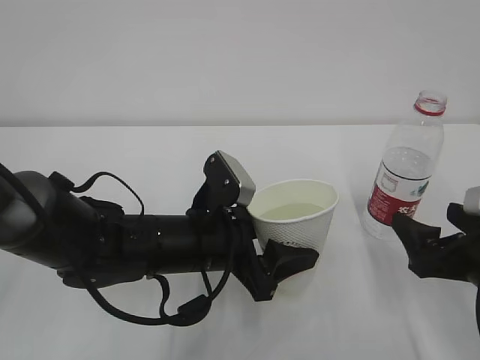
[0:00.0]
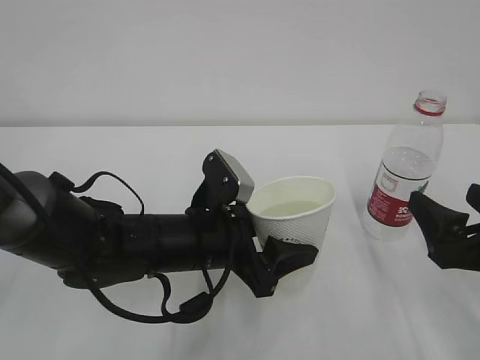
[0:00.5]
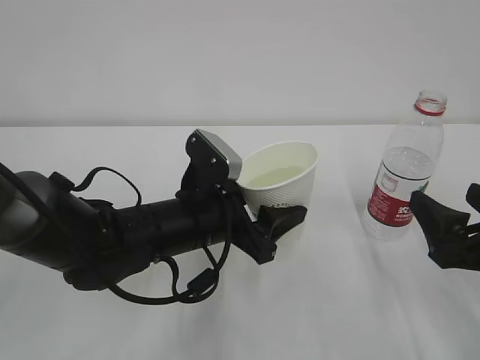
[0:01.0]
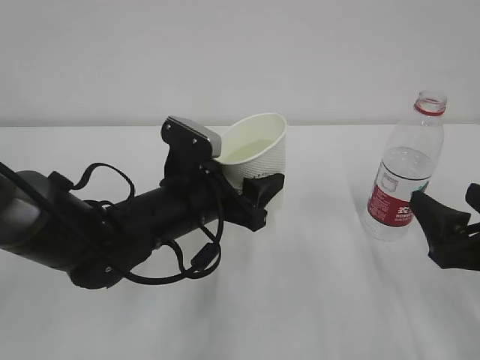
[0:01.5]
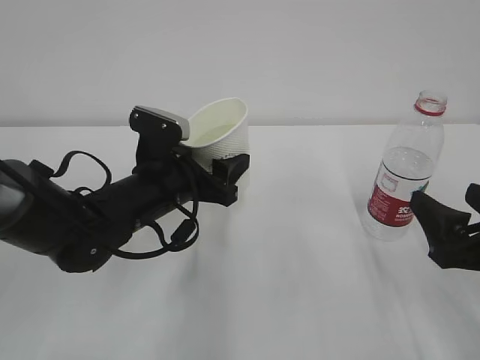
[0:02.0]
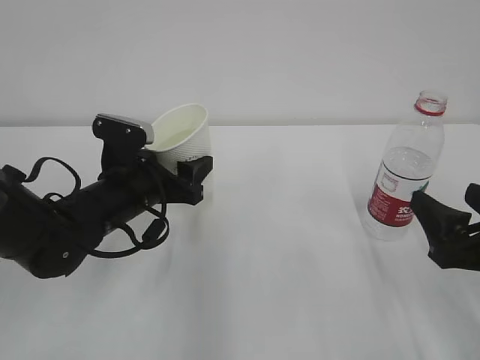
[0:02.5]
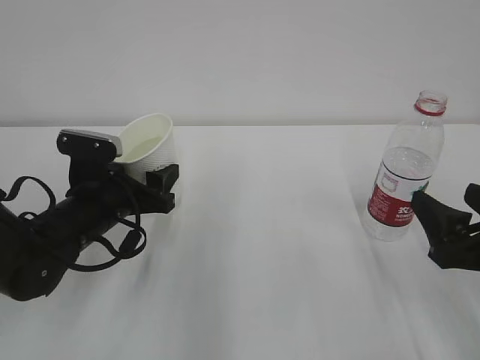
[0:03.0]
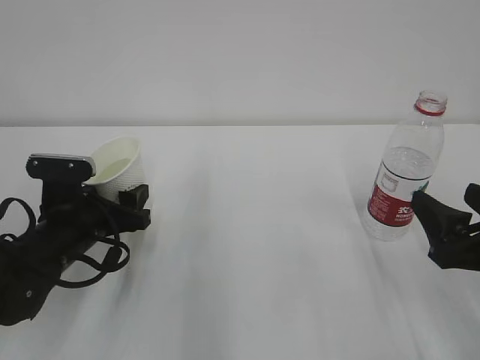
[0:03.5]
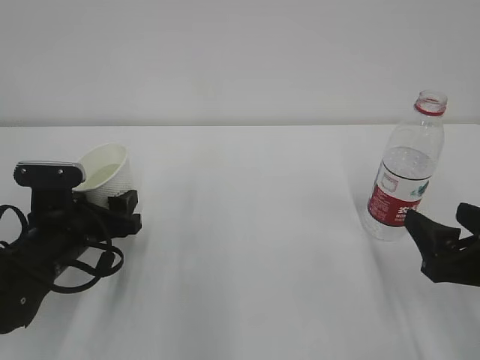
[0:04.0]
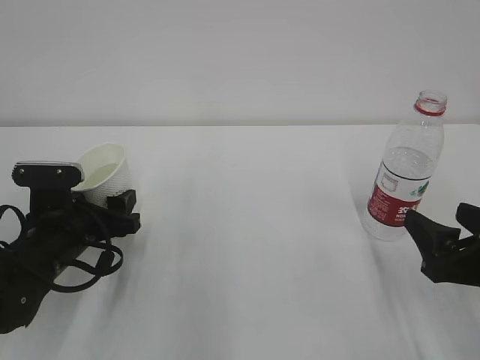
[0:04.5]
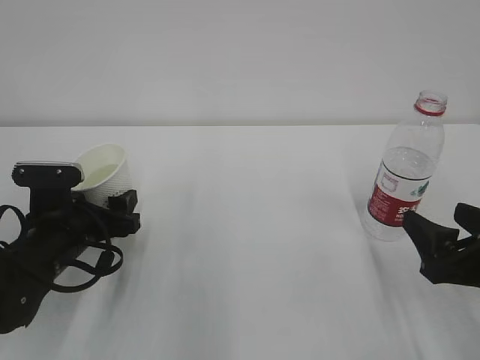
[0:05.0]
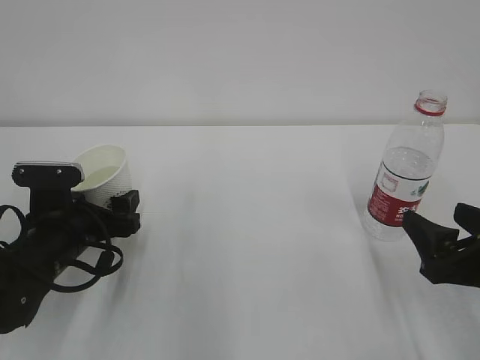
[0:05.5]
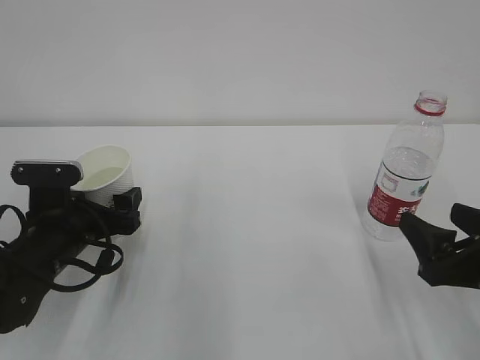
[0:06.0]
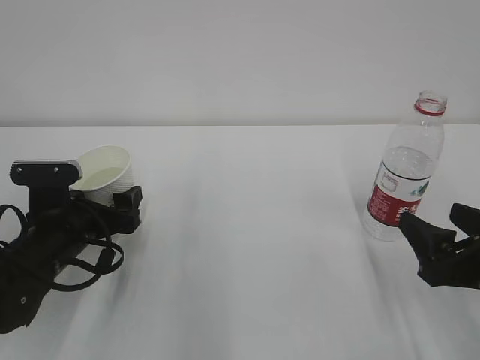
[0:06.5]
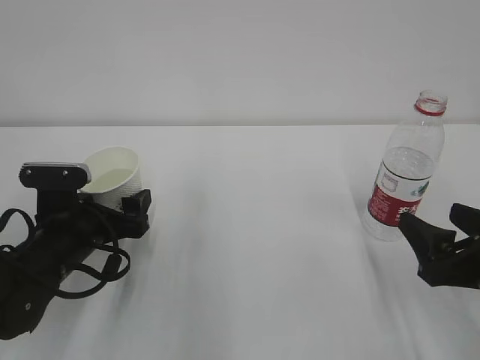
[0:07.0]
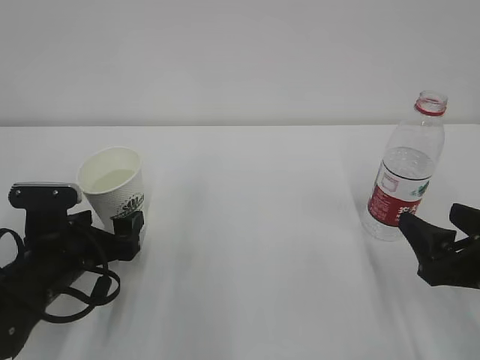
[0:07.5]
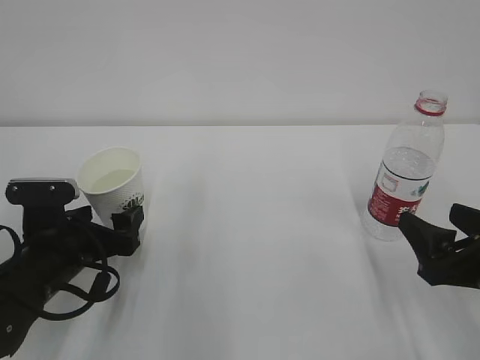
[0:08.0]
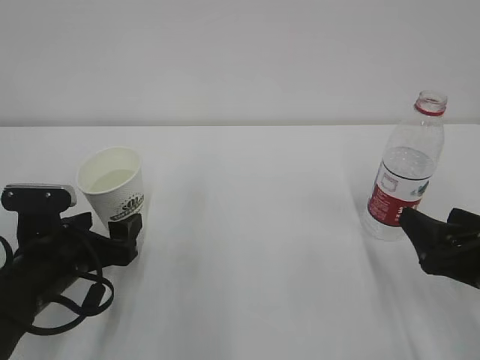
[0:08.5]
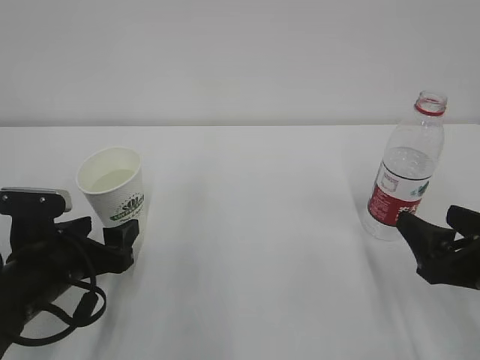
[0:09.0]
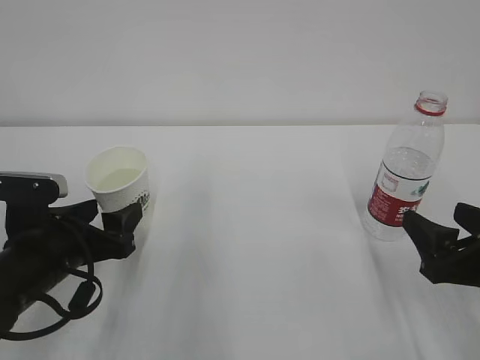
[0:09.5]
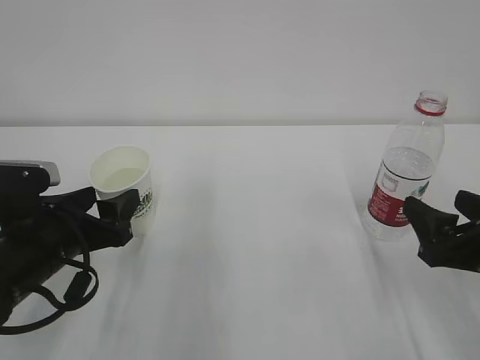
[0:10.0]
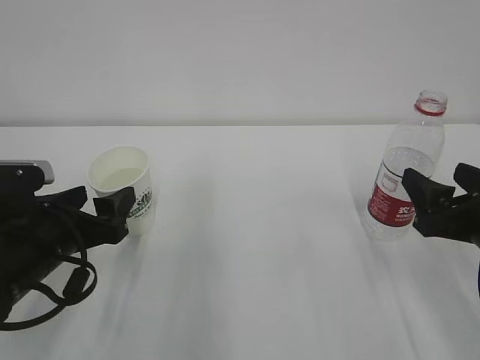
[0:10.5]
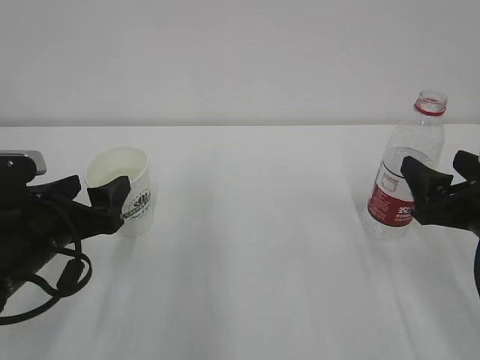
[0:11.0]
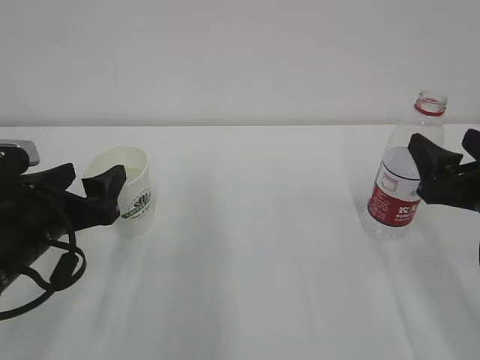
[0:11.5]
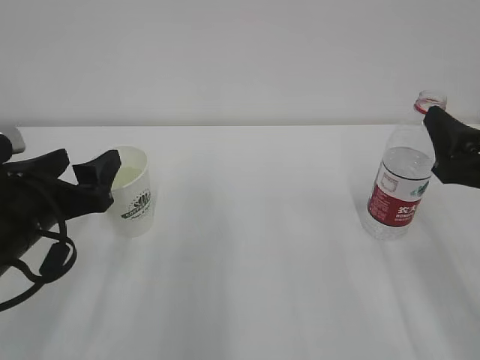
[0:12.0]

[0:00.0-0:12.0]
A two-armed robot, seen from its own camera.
Step, 0:00.0 to 0:06.0: Put the cup down with left gripper.
0:00.0 to 0:02.0: The left gripper goes about 5 cm forward.
0:02.0 to 0:04.0: The left gripper travels to the left by about 10 cm.
0:04.0 to 0:06.0: The left gripper opens its fingers.
0:06.0 to 0:08.0: The grippers stay close to where they were, moving slightly.
0:08.0 to 0:10.0: The left gripper closes up.
0:10.0 to 0:12.0: The right gripper moves upward, some 5 cm.

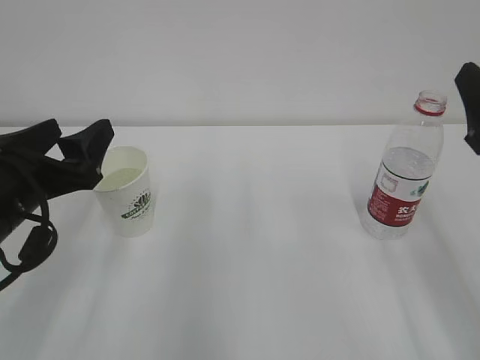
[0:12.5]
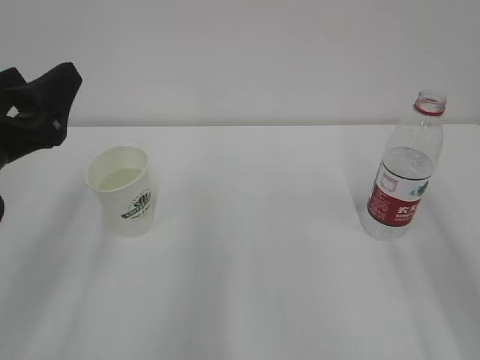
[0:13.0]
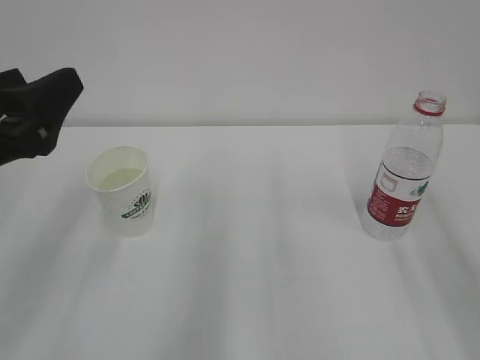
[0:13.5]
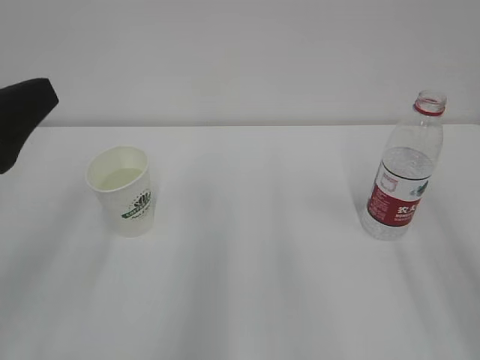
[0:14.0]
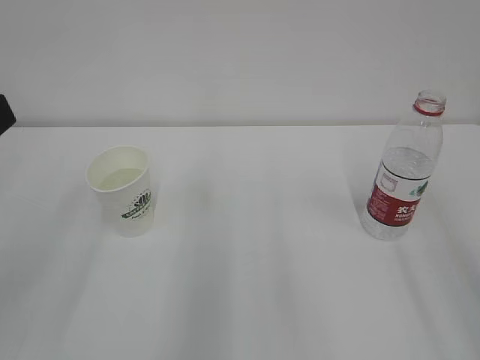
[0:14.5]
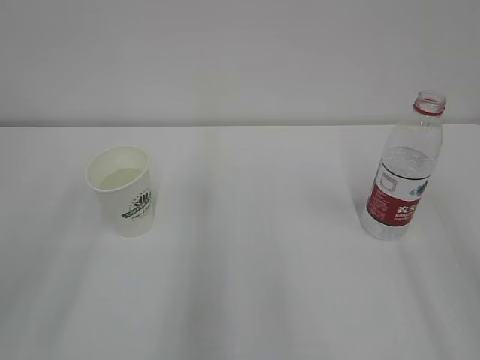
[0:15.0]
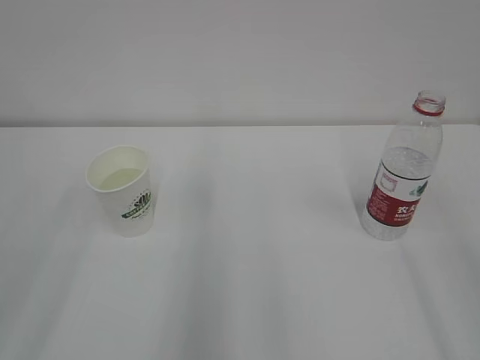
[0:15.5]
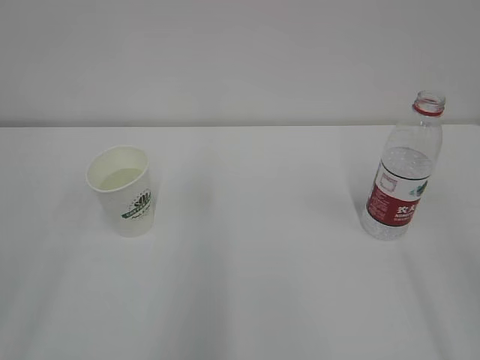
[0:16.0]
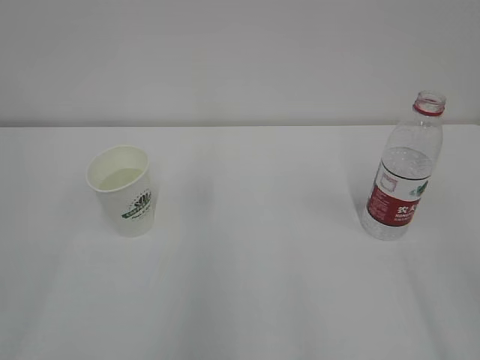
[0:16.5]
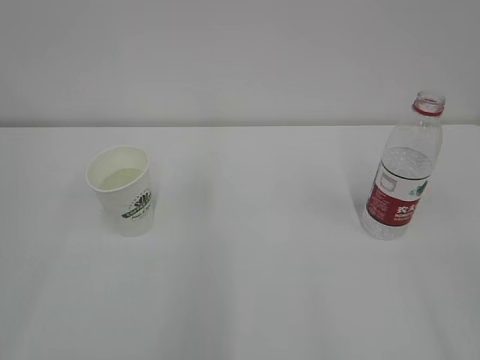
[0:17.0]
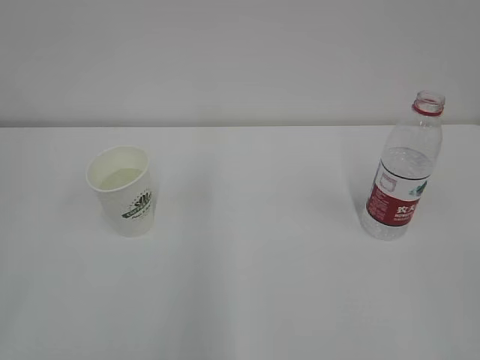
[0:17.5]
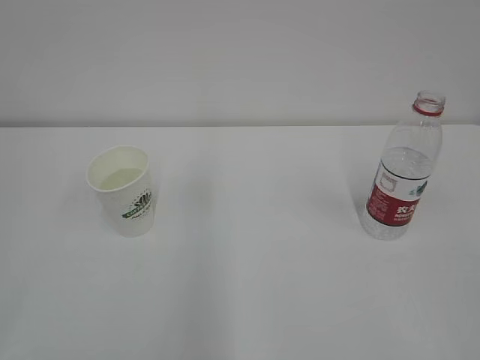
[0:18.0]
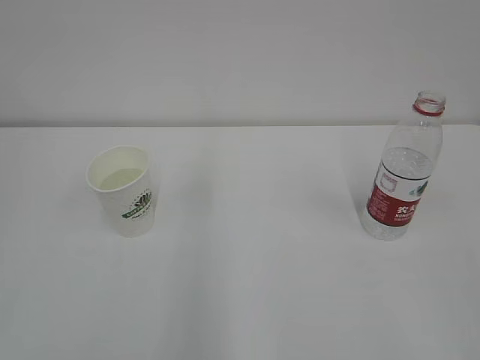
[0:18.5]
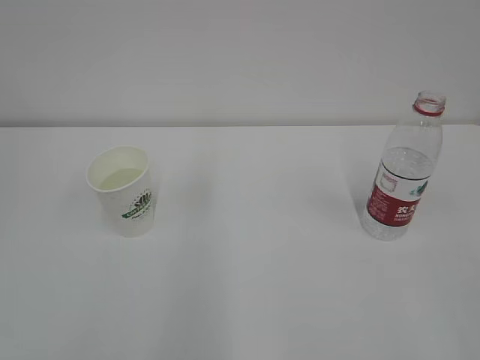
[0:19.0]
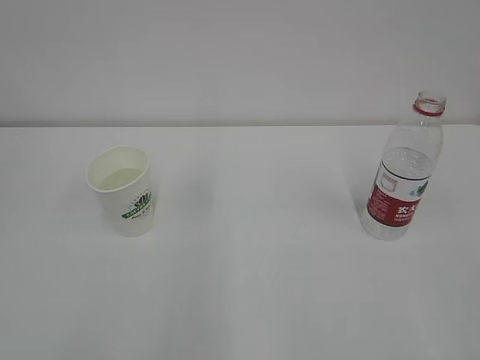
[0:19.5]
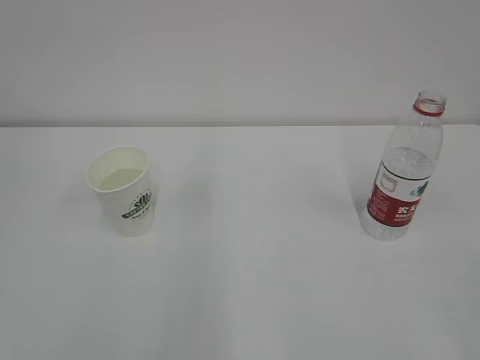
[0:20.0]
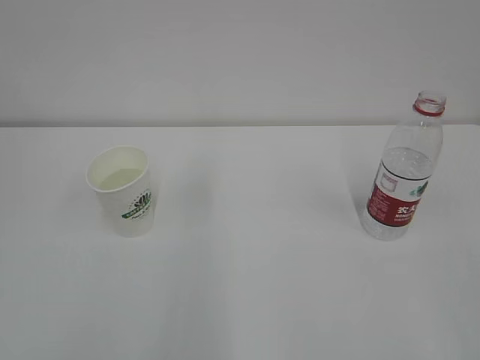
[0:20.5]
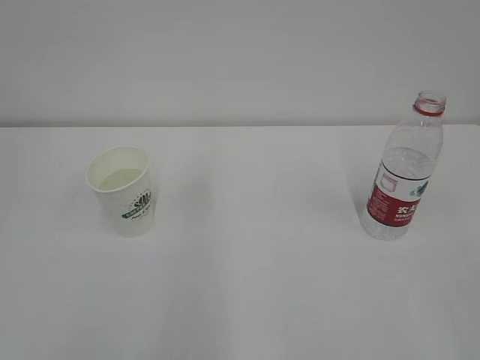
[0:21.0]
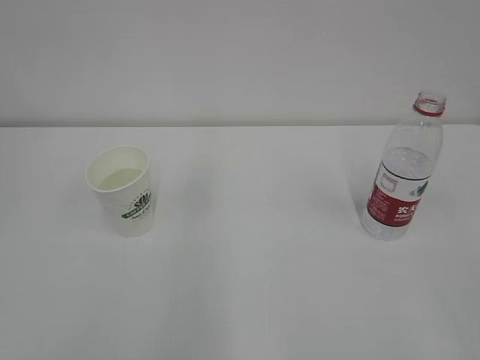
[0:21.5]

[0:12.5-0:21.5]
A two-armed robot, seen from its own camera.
0:12.5 to 0:14.5: The two grippers go about 15 cm backward and upward.
0:19.5 to 0:21.5: The two grippers keep their place.
